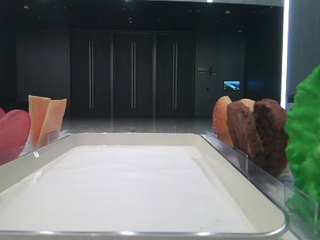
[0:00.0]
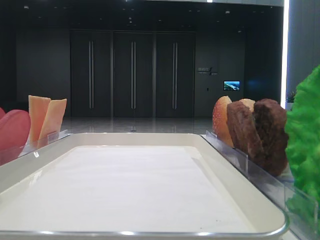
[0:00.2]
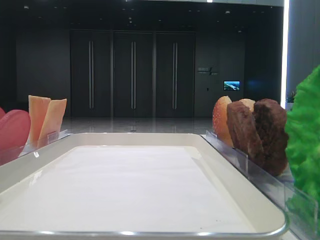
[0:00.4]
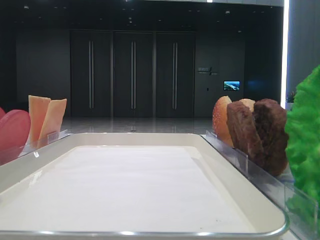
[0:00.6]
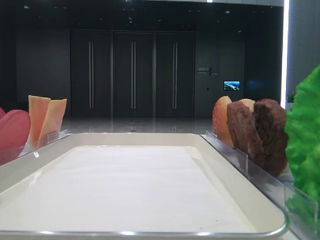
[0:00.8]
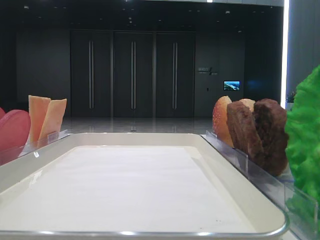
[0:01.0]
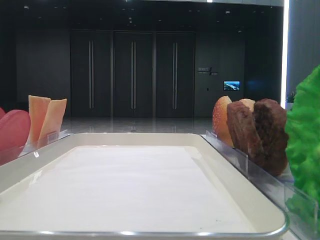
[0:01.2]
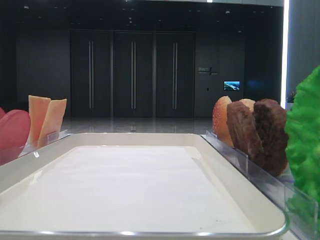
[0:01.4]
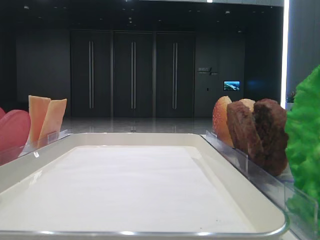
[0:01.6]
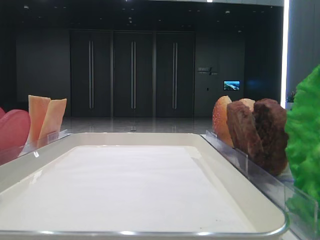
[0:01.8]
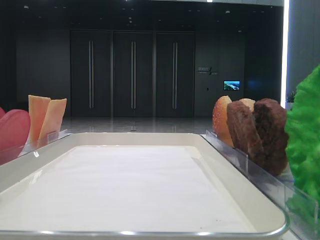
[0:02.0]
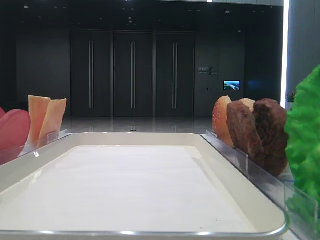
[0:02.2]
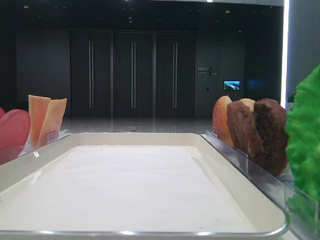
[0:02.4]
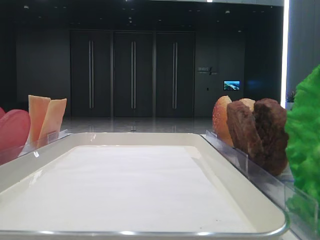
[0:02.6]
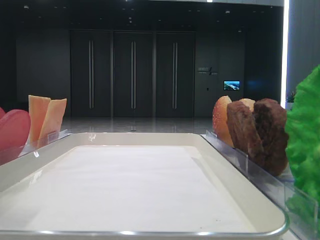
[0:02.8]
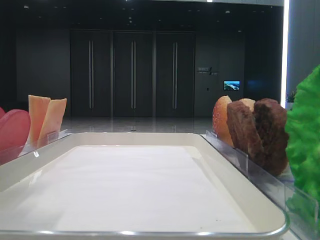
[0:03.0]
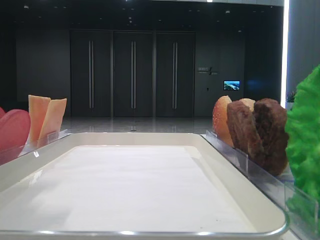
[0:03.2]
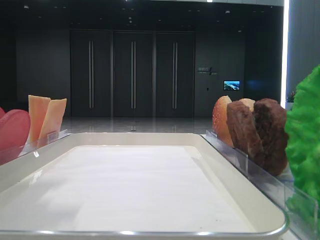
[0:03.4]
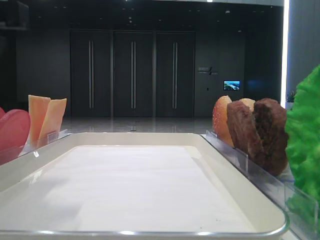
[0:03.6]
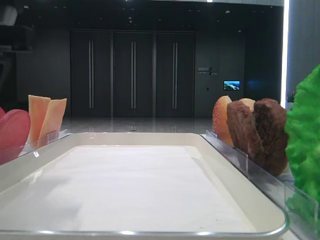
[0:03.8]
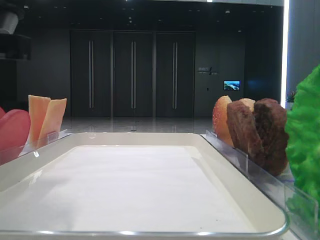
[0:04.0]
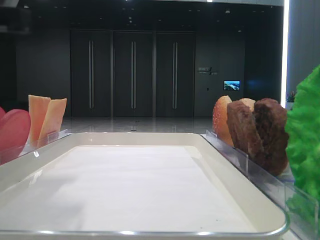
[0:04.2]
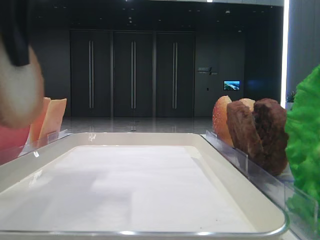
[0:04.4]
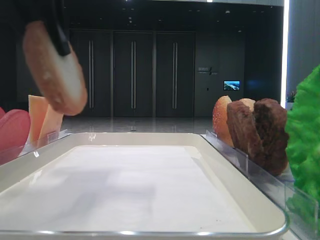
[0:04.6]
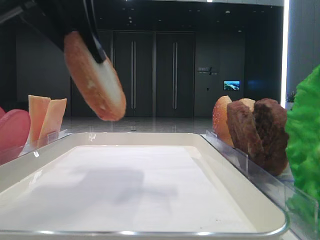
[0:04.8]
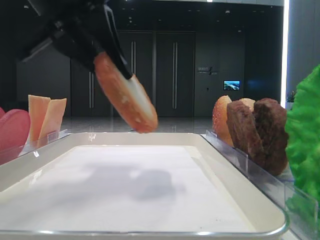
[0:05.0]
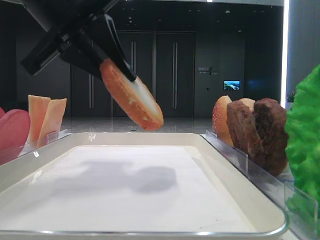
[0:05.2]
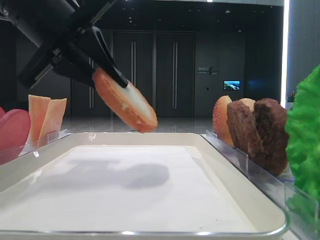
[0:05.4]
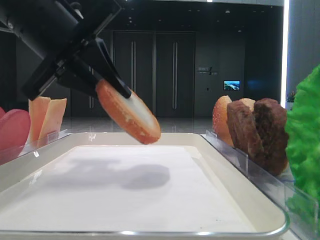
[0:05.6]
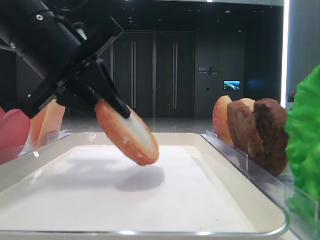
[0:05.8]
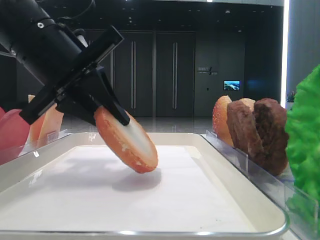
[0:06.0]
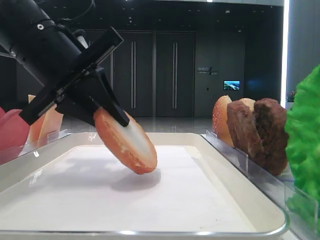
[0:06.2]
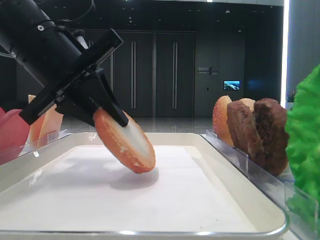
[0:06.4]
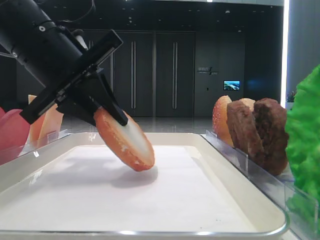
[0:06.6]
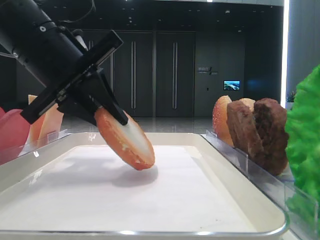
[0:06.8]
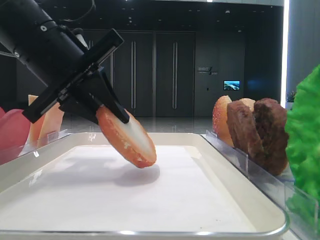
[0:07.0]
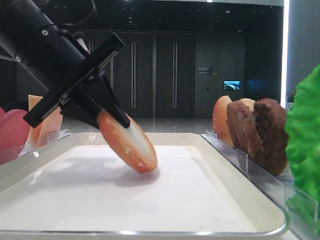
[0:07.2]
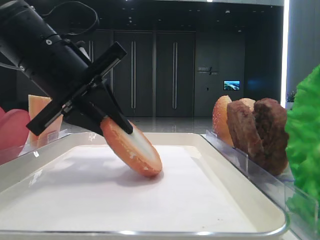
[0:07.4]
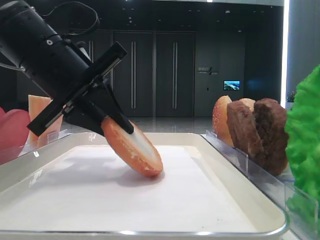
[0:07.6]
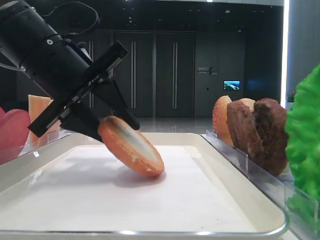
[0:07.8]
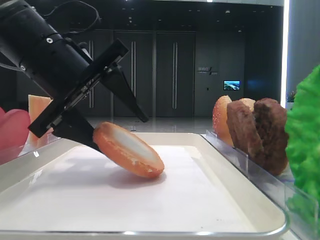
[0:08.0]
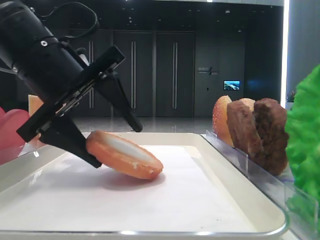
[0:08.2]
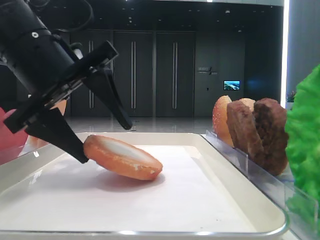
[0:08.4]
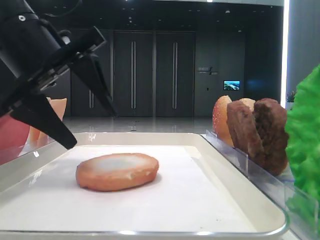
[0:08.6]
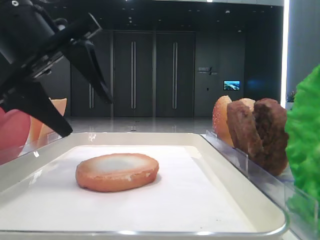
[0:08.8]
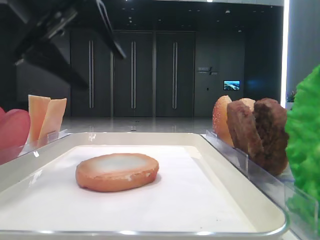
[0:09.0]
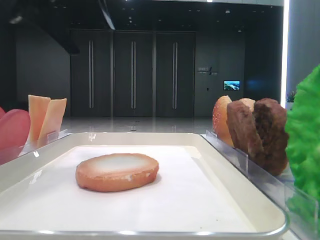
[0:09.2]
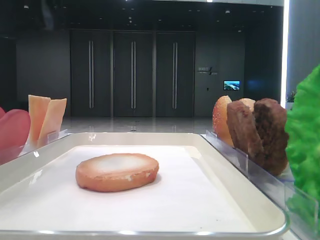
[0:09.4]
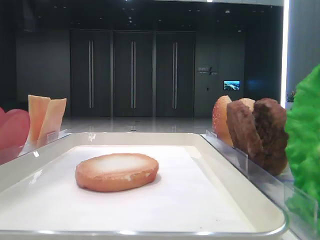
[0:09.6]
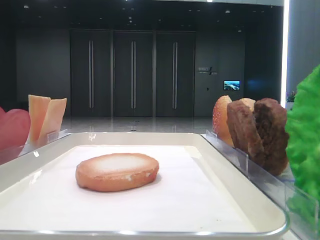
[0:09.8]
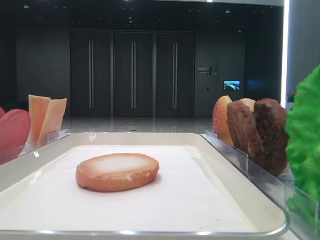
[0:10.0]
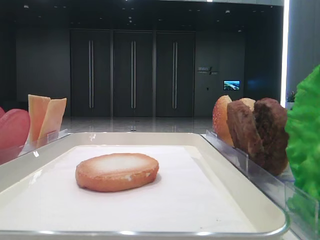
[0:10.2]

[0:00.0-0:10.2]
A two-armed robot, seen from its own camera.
Step, 4.2 to 8.4 s: Place the bread on the tray with the left hand.
1.4 to 3.0 s: The left gripper goes some 20 cm forward and to the right.
3.0 to 4.4 s: The left gripper shifts by about 5 cm, and closes up.
4.4 to 5.8 s: The left gripper heads downward and forward, covering roughly 10 cm.
5.8 to 7.2 s: The grippers make only small movements.
7.2 to 8.8 s: The left gripper opens.
8.8 to 10.2 s: The left gripper shifts some 25 cm to the left and upward.

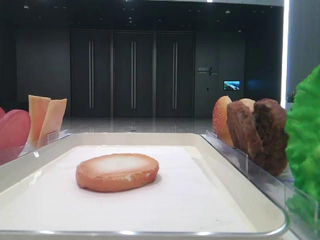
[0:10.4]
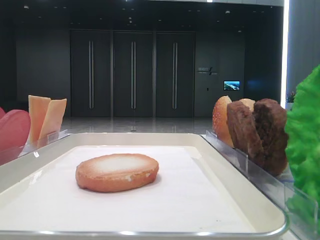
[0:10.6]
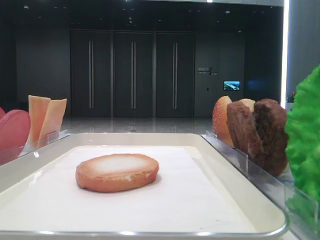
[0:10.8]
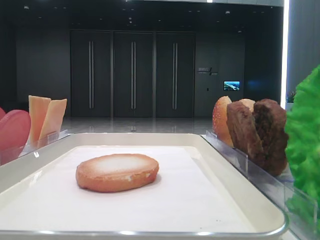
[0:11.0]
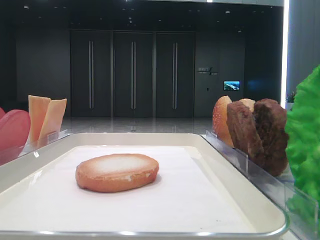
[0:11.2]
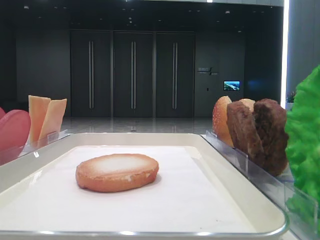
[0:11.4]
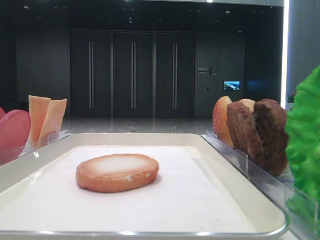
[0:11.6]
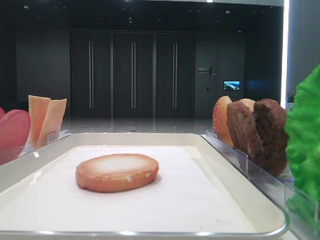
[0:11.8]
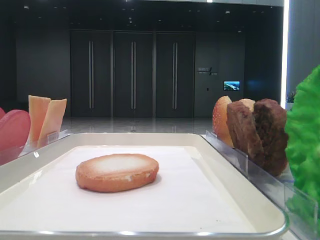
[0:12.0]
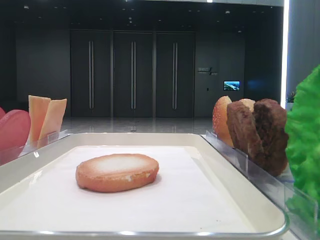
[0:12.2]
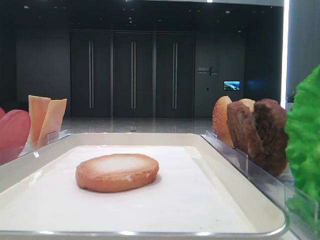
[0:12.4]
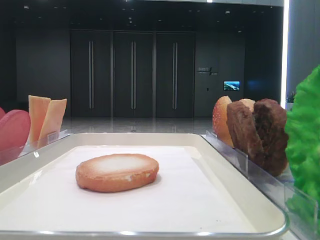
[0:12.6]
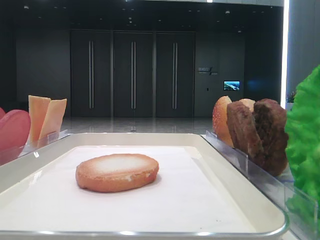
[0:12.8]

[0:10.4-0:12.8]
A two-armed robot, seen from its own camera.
11.6 to 12.8 s: Both grippers stay put.

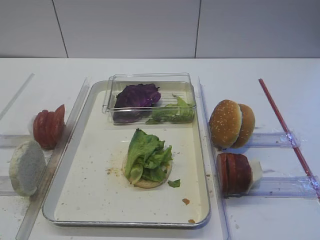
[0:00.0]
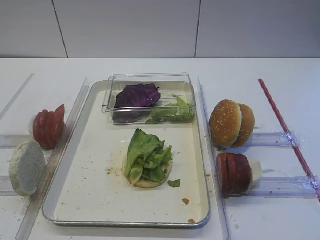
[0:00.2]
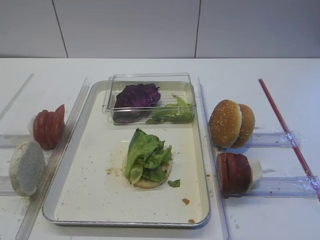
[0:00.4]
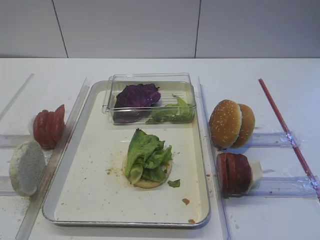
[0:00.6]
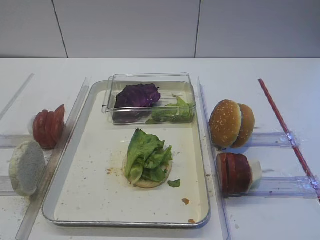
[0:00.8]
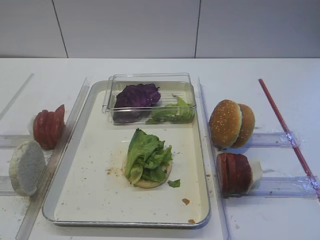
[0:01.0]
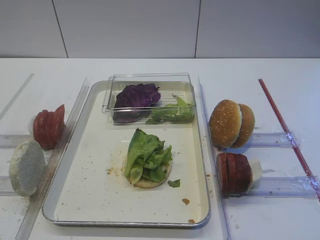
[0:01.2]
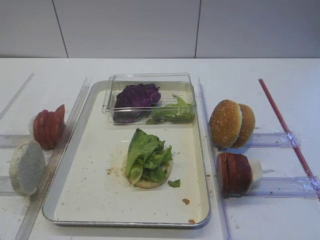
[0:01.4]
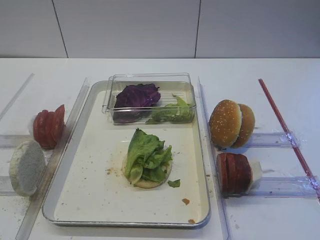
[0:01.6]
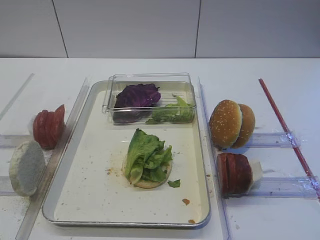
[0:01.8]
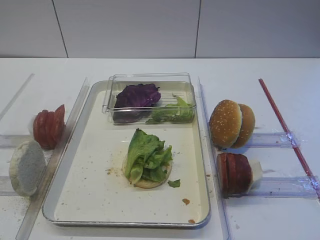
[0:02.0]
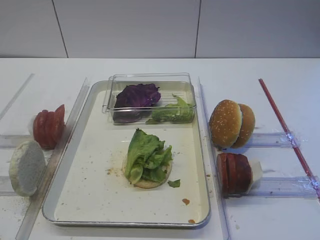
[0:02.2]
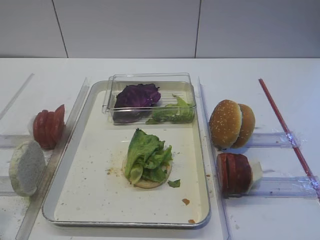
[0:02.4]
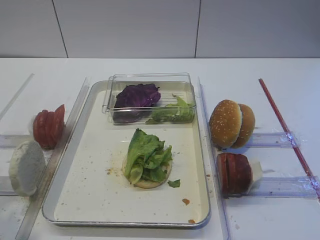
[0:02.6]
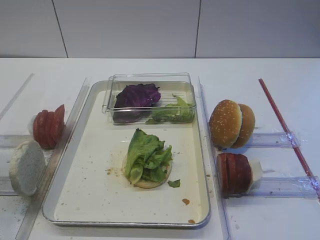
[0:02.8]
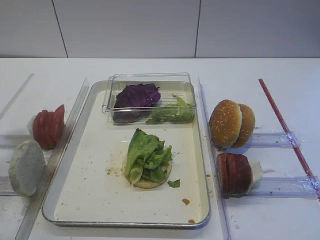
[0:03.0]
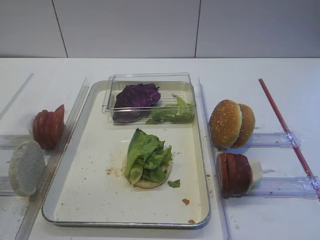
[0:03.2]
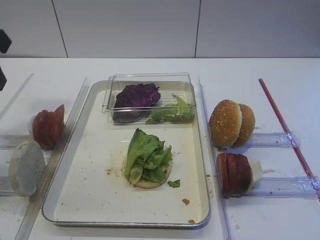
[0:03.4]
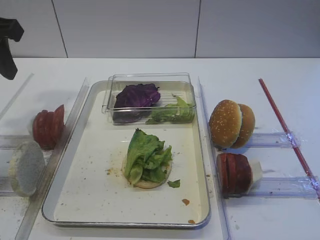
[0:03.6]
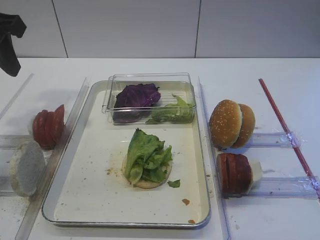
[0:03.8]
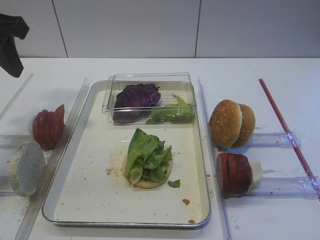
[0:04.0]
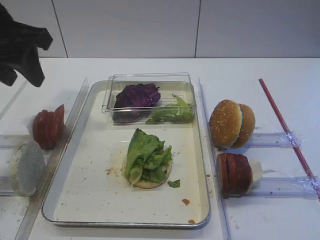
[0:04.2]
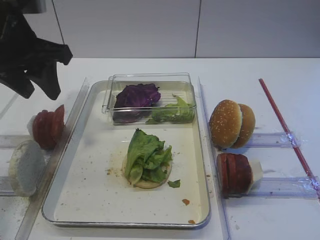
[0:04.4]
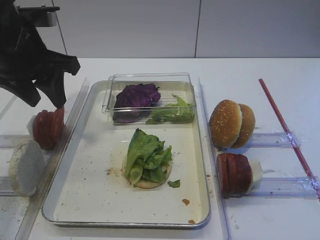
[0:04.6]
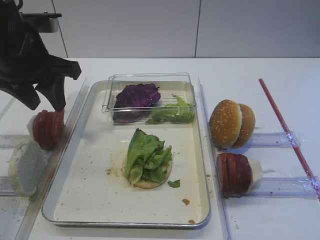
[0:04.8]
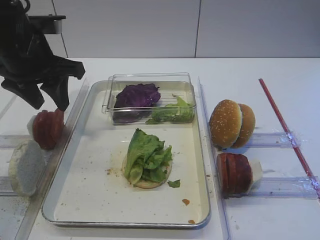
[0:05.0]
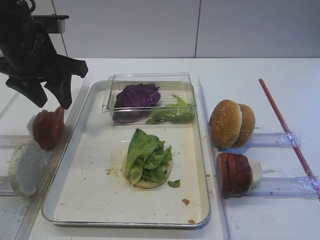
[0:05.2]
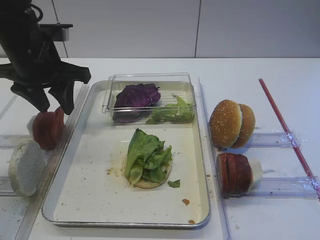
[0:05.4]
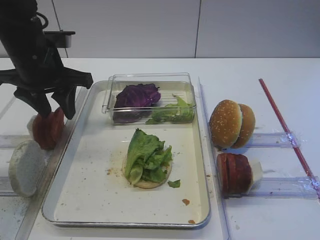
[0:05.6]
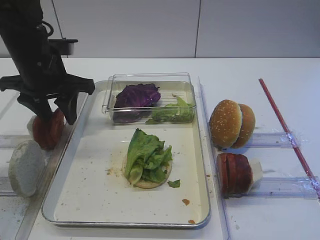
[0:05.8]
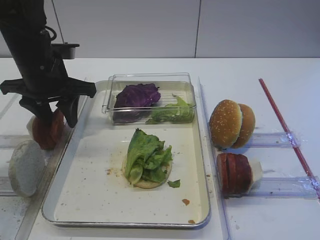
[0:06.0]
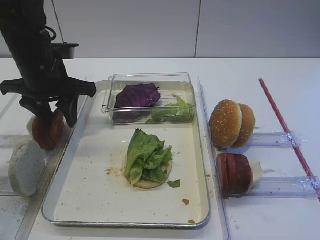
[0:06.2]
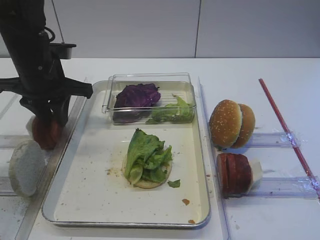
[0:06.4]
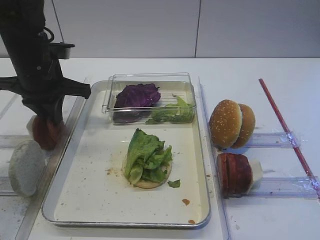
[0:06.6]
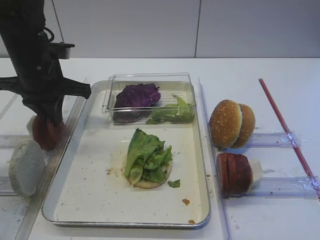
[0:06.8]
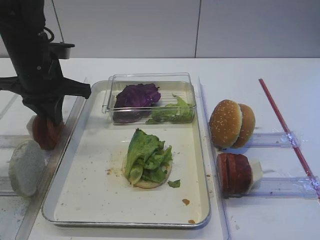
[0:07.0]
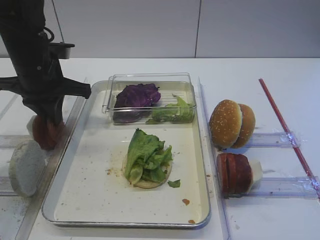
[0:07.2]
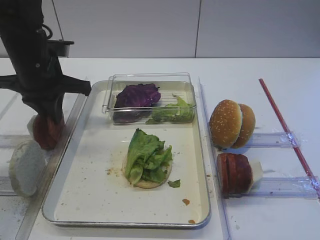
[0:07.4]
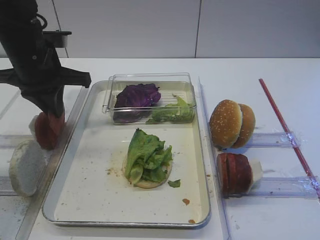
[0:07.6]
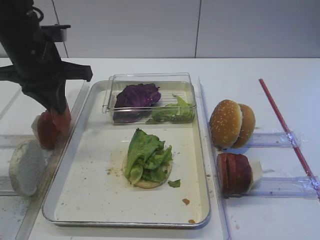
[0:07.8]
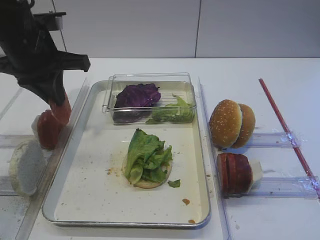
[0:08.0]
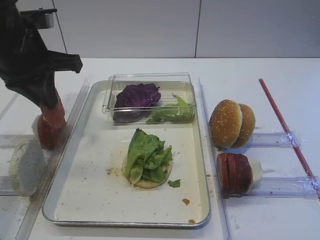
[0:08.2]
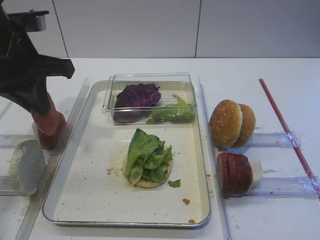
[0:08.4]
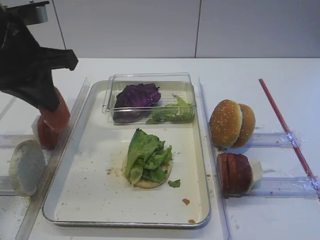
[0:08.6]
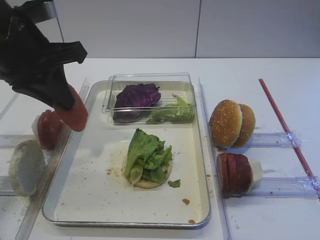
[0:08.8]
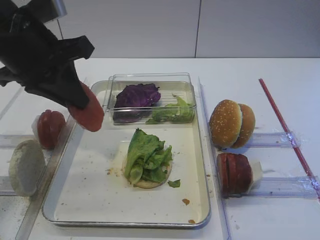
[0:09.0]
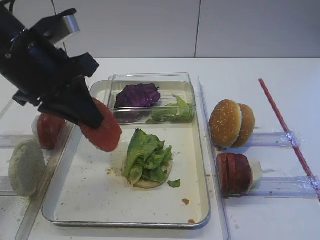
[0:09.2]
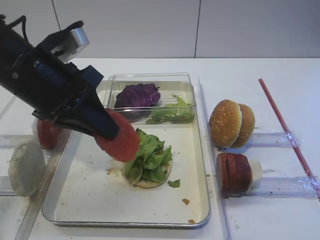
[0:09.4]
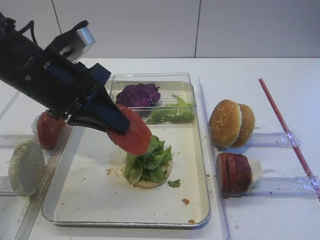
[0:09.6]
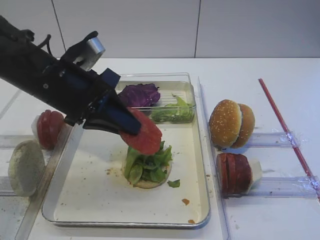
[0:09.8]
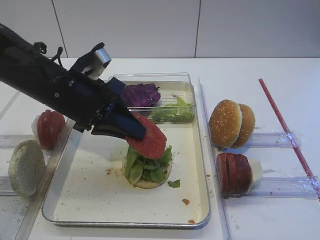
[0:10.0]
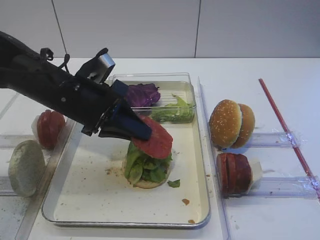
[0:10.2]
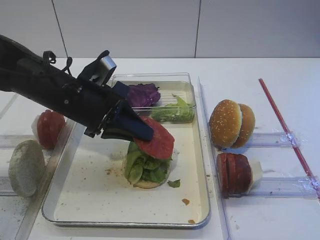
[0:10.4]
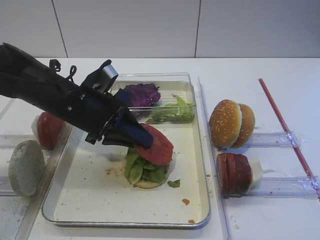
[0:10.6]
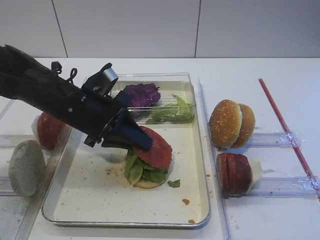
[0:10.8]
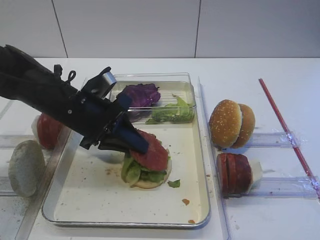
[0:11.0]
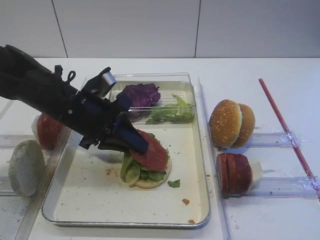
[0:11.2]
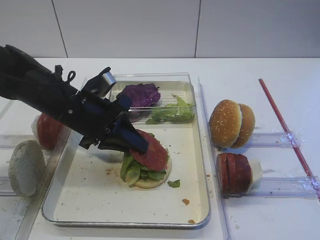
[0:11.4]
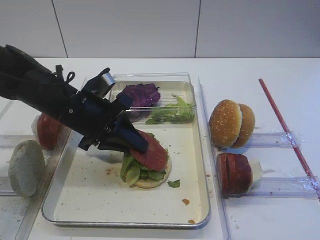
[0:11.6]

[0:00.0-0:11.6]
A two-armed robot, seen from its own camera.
Step, 0.0 to 7.6 s: Pick up the tomato slice with the left gripper.
1.4 to 2.8 s: The left gripper is displaced forward and upward by some 15 cm.
2.8 to 4.4 s: The left gripper heads forward, covering approximately 20 cm.
4.4 to 5.8 s: The left gripper travels downward and forward by about 10 cm.
5.8 to 7.2 s: The left gripper closes its fingers.
7.2 to 8.8 s: The left gripper goes about 10 cm backward and upward.
8.8 to 10.2 s: The left gripper moves downward and to the right, about 10 cm.
10.2 to 11.6 s: There are only small adjustments of the grippers.
